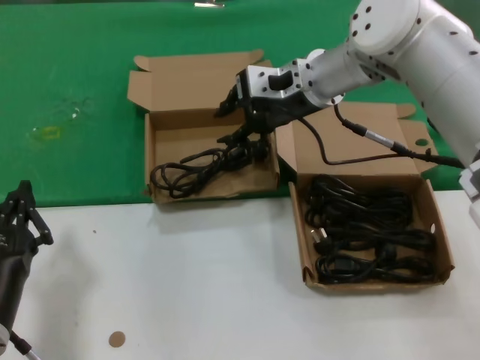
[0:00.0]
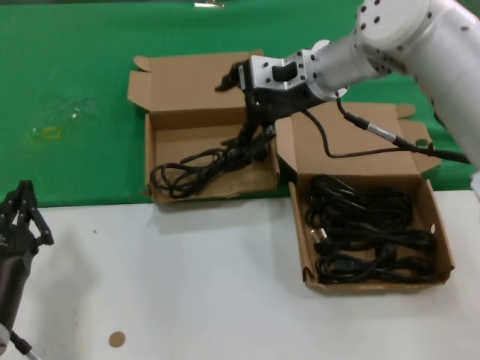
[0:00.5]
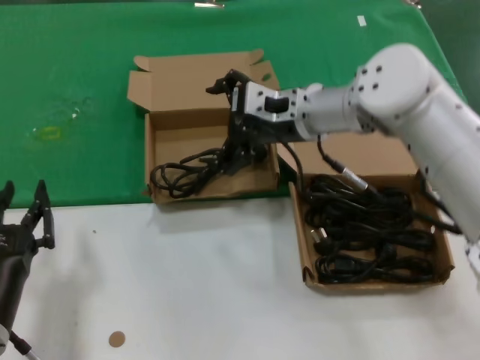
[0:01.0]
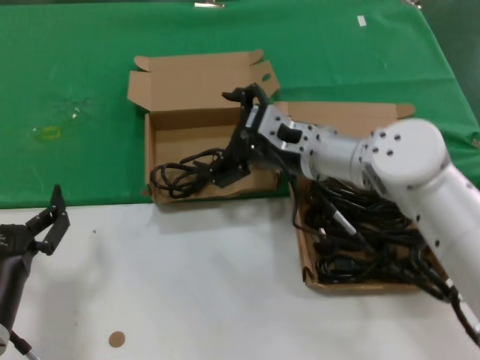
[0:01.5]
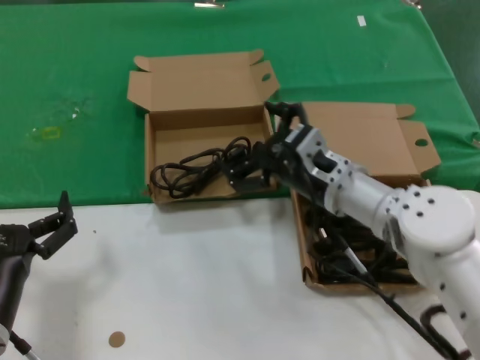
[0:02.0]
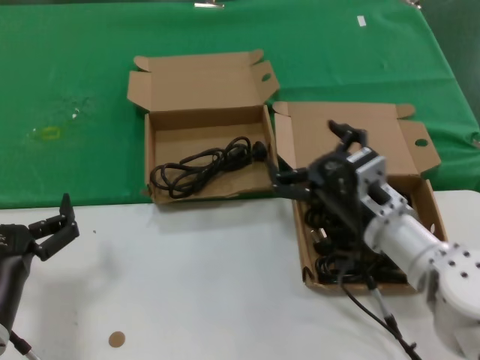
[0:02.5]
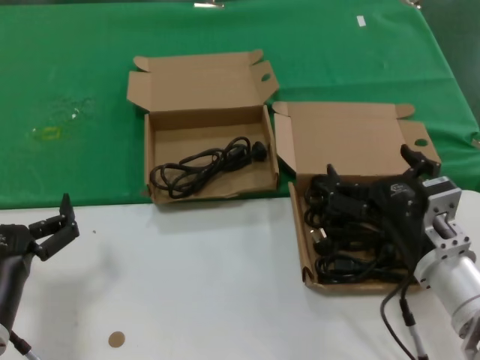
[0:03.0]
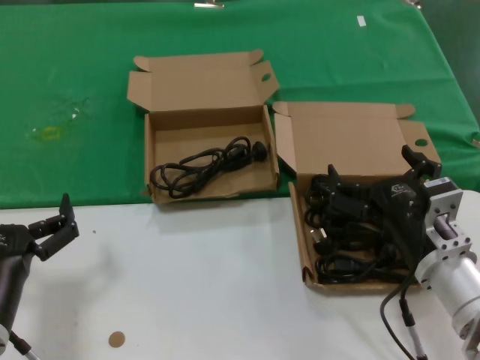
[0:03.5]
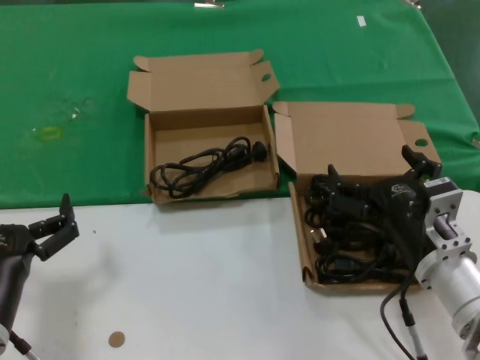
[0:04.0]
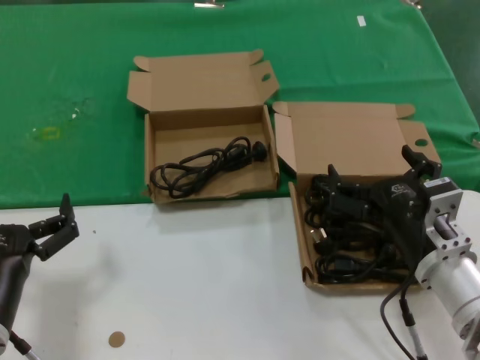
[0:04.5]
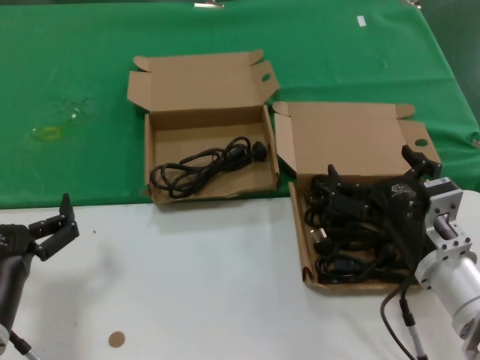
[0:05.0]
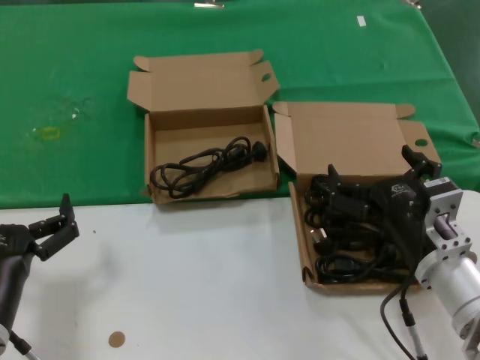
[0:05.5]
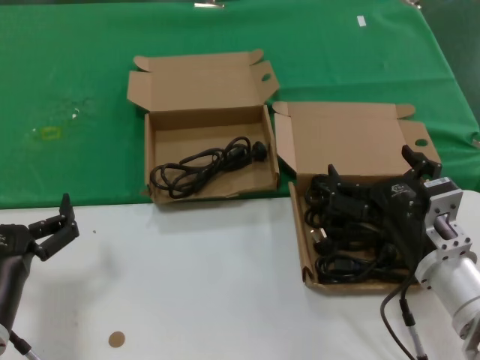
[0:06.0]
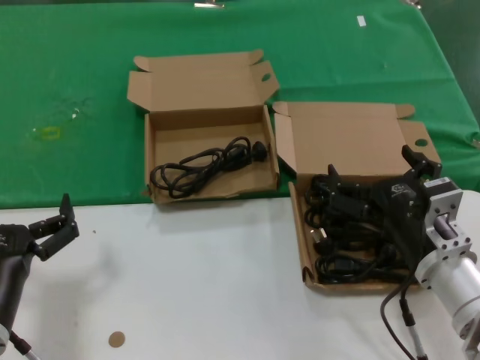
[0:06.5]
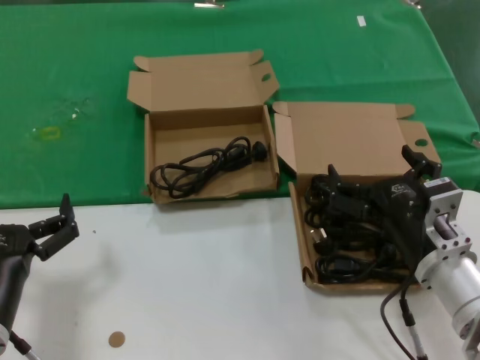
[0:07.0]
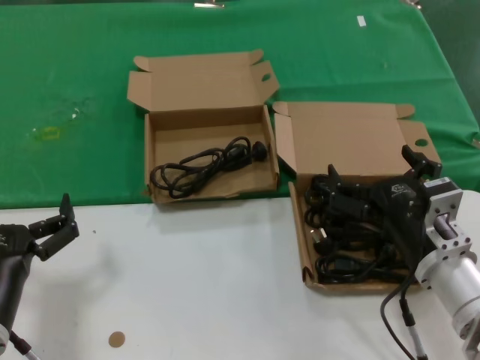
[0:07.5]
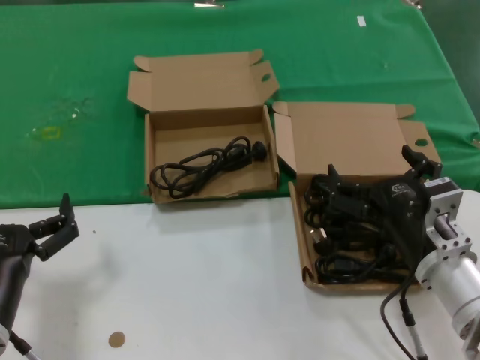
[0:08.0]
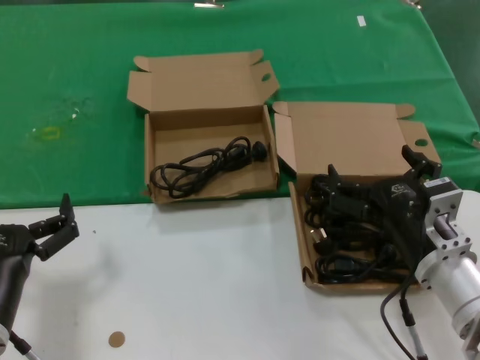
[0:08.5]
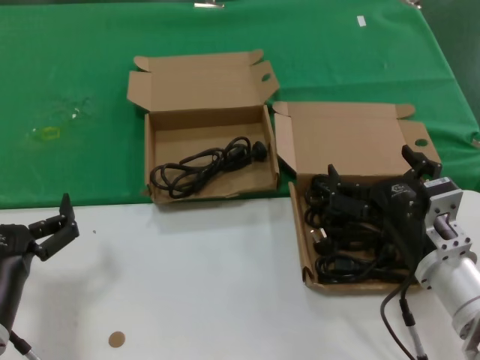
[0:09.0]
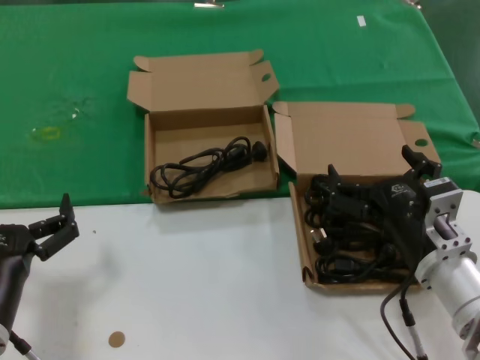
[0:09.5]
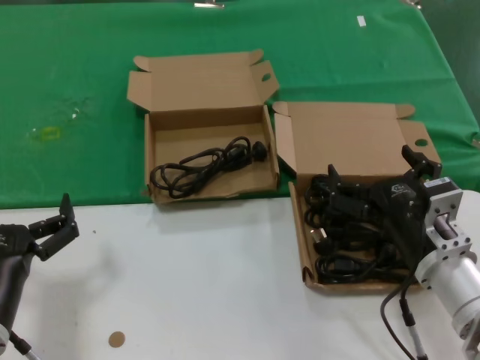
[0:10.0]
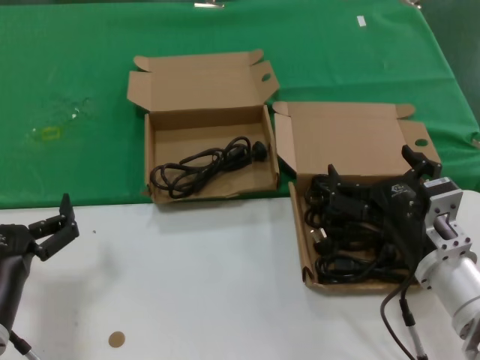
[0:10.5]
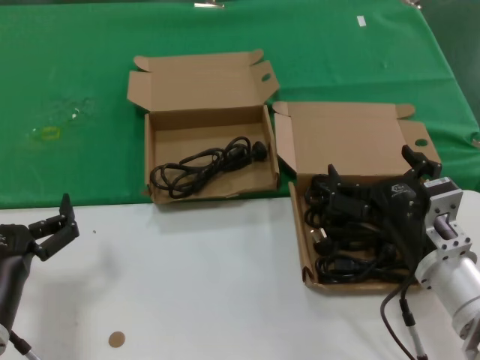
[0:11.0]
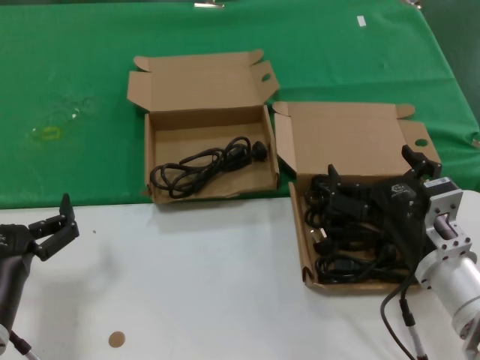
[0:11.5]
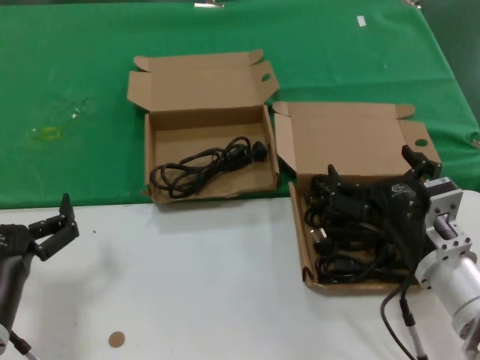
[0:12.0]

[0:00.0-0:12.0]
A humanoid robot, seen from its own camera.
Task of the whole recording: take the parts from the box containing them and put them into an empty box.
0:00.0 to 0:02.0: The right hand goes approximately 20 cm downward and backward.
0:02.0 to 0:04.0: The right hand travels backward and to the right by approximately 15 cm.
0:04.0 to 0:12.0: The two hands keep their place.
